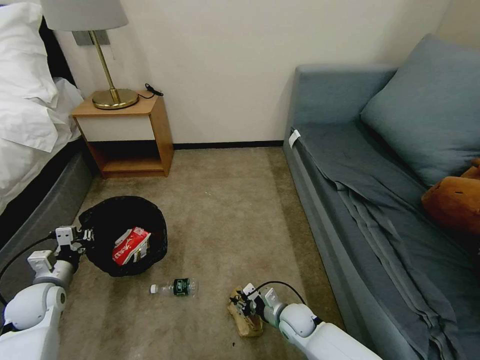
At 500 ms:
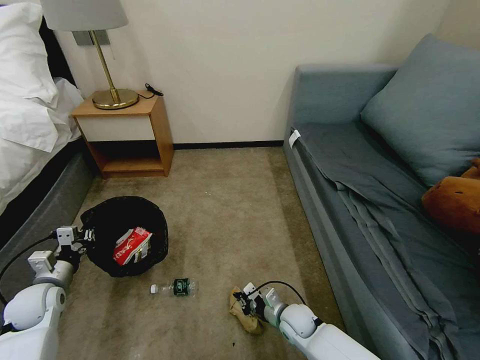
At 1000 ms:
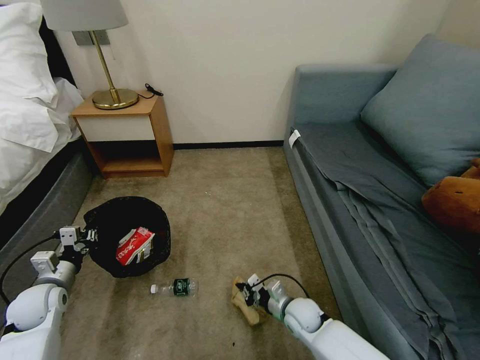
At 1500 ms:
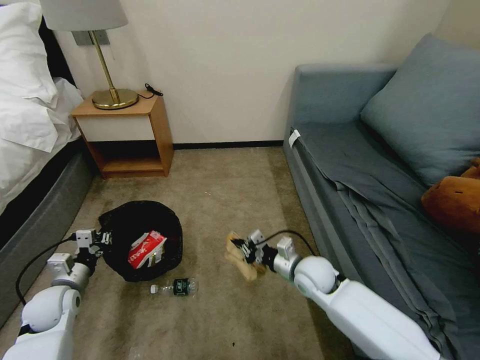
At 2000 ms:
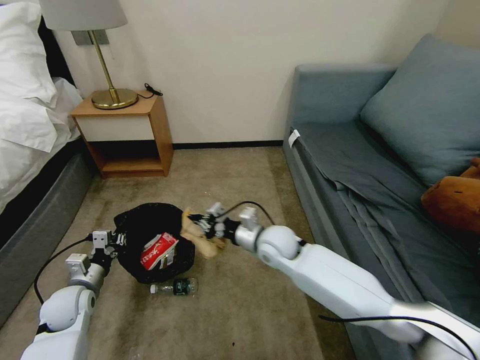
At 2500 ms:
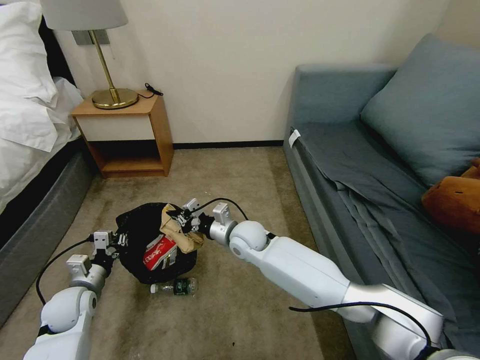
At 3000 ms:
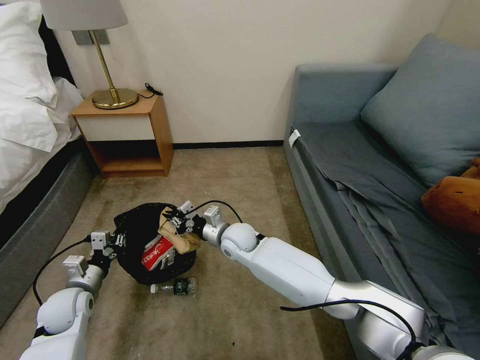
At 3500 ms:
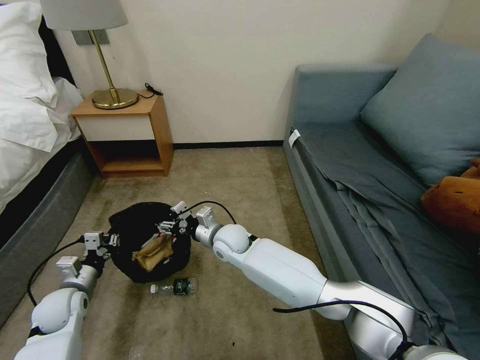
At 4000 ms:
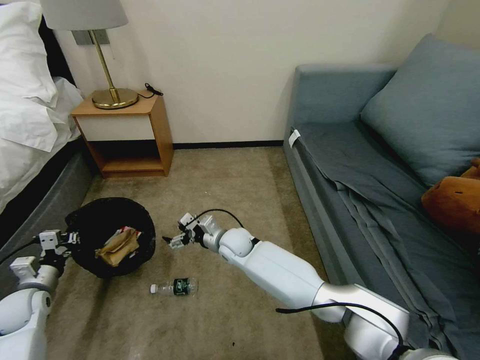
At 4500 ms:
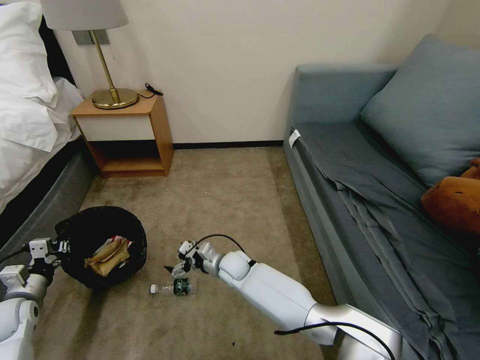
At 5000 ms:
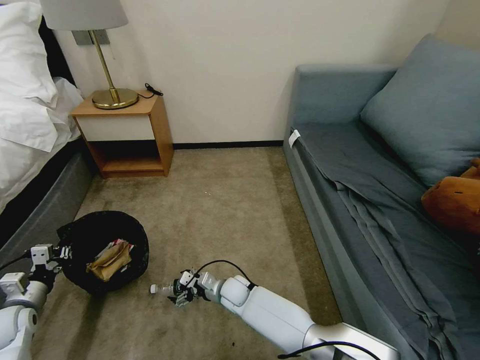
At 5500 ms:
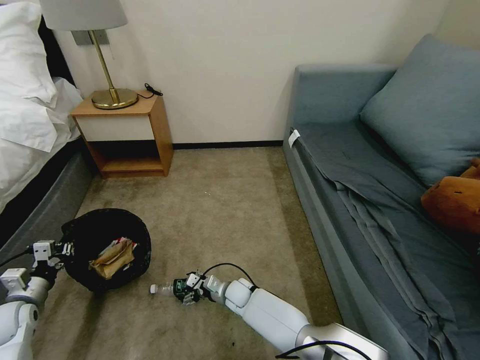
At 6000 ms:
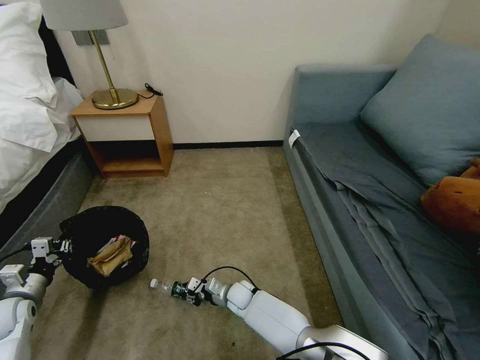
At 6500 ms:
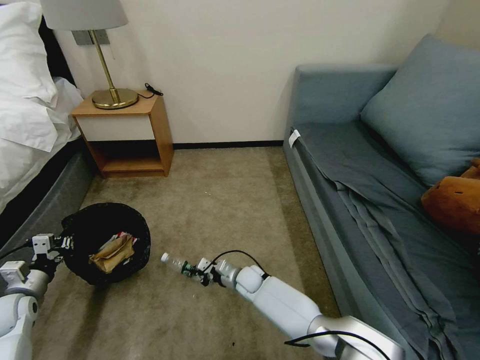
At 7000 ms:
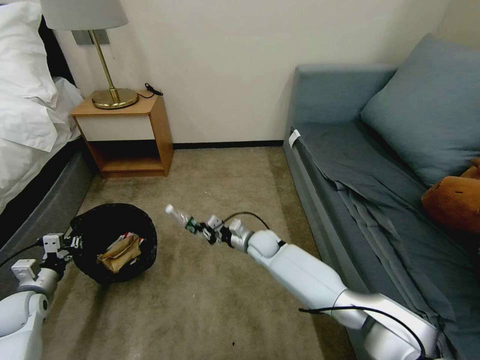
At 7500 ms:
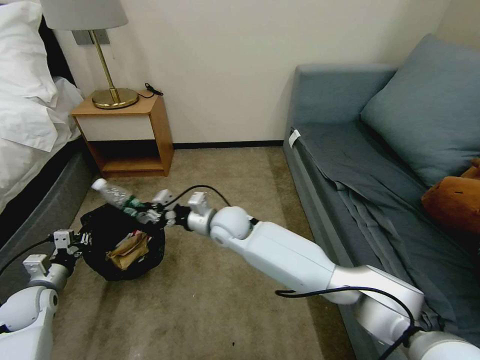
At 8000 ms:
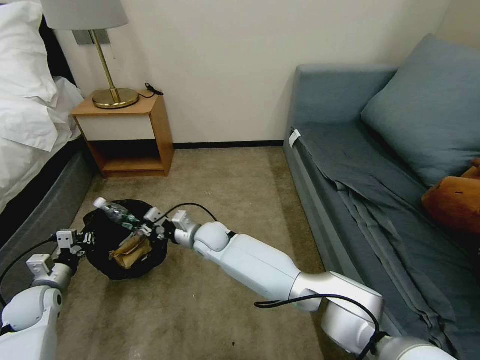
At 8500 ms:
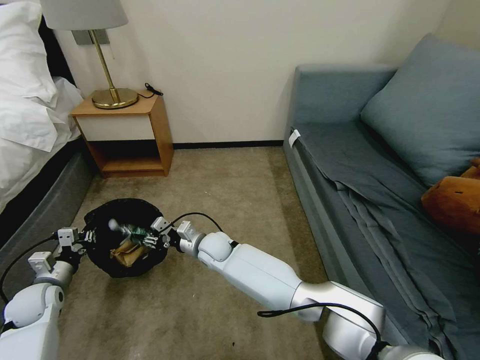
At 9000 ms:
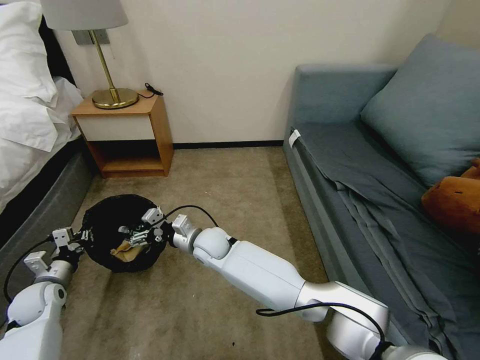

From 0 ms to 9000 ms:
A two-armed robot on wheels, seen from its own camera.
Task of the whole recording: Pick up the trash bin, then pick up the garbage on the floor and place it into the trash bin.
From 0 ms to 2000 ms: The right gripper is displaced upward and forward by some 25 cm; the left gripper shifts about 5 cm to the right.
From 2000 ms to 4500 ms: The right gripper moves downward and to the left, approximately 15 cm, and opens. Meanwhile the left gripper heads to the left, covering roughly 15 cm.
From 4500 ms to 7000 ms: The right gripper is displaced to the right by approximately 10 cm, travels downward and back again, roughly 10 cm each way, and closes.
From 7000 ms to 9000 ms: The right gripper goes up and down, roughly 15 cm each way, reversing 2 times, and opens.

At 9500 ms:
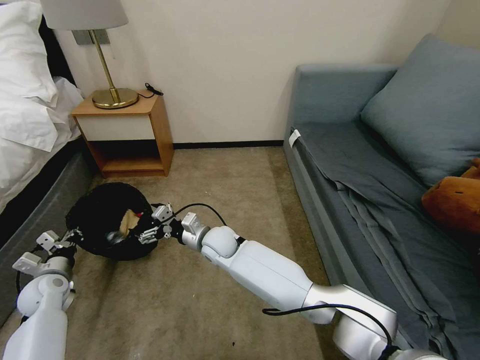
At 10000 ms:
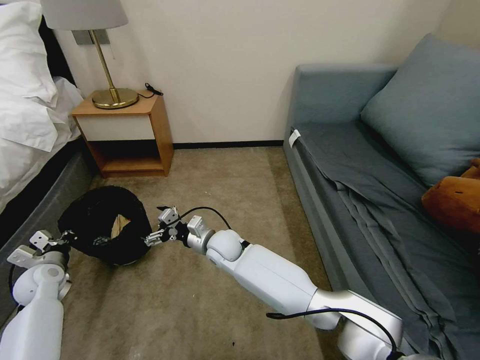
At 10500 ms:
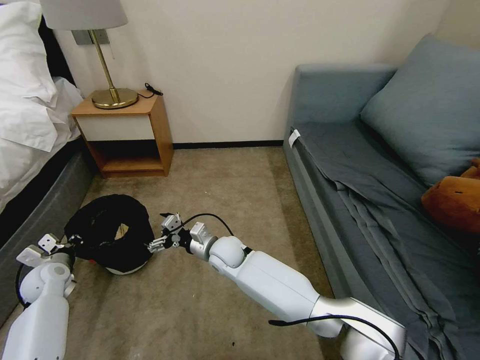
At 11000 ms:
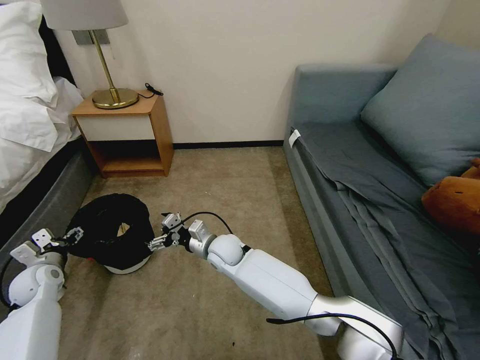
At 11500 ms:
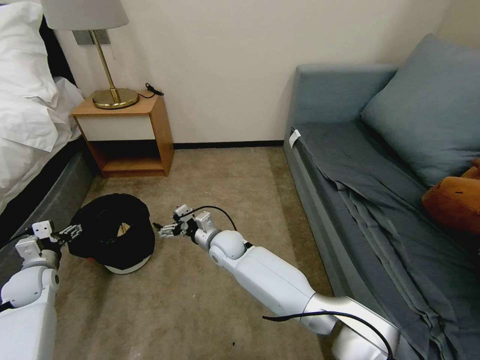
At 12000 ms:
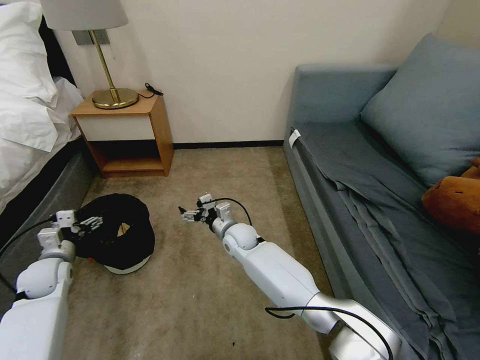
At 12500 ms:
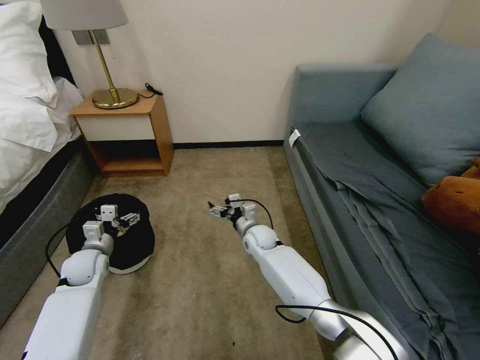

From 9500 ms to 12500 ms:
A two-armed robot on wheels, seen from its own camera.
Task of the whole recording: Pick up the trash bin, then pick up the garbage on the floor and place it into the trash bin.
From 9500 ms to 11000 ms: The left gripper opens its fingers.
From 11000 ms to 12500 ms: The right gripper heads to the right and forward, covering about 10 cm. The left gripper is displaced to the right by about 10 cm.
